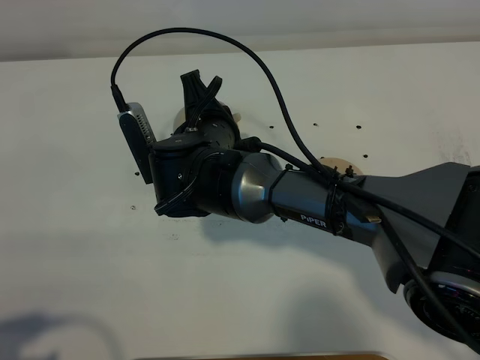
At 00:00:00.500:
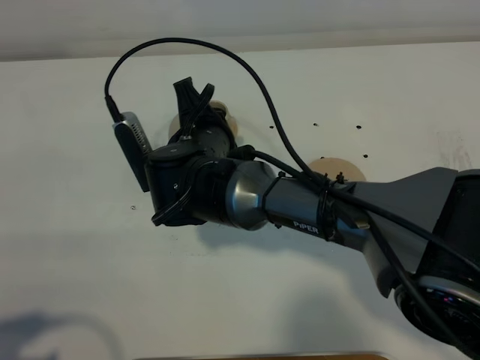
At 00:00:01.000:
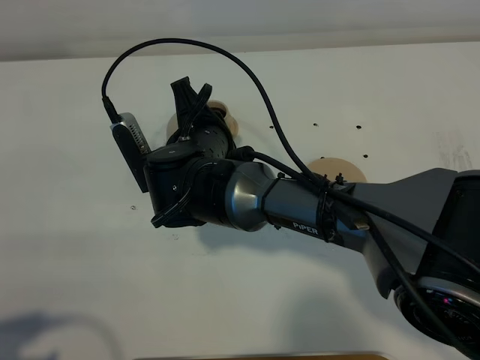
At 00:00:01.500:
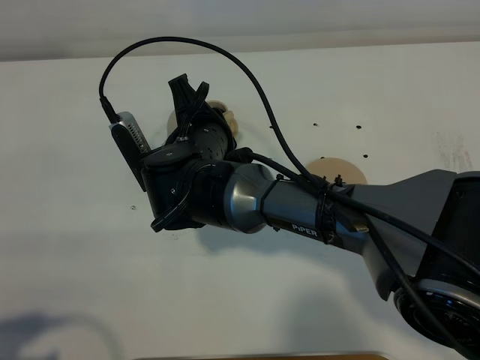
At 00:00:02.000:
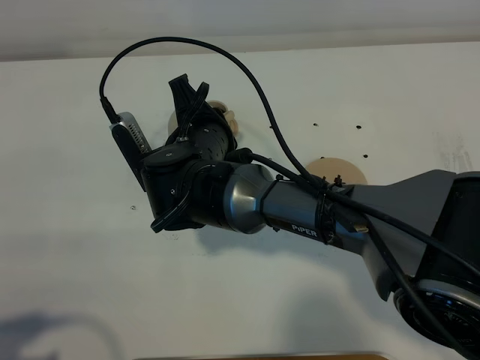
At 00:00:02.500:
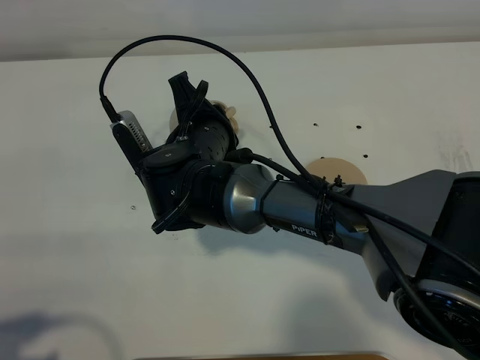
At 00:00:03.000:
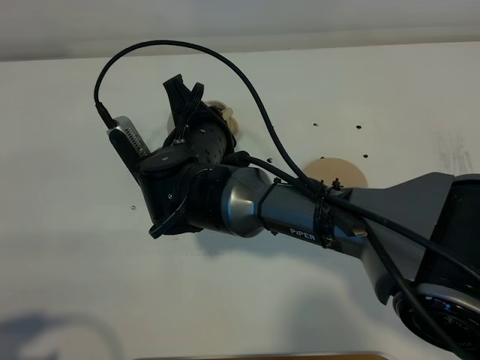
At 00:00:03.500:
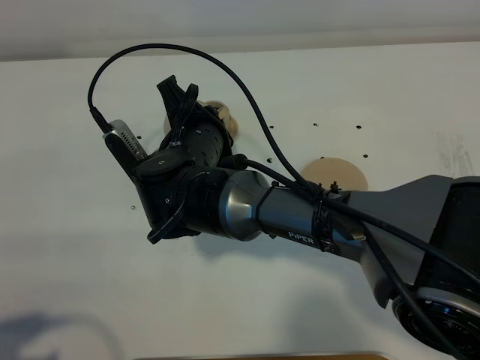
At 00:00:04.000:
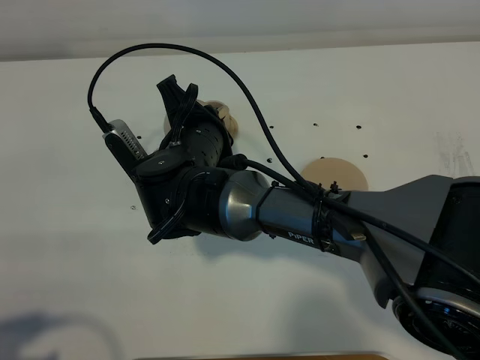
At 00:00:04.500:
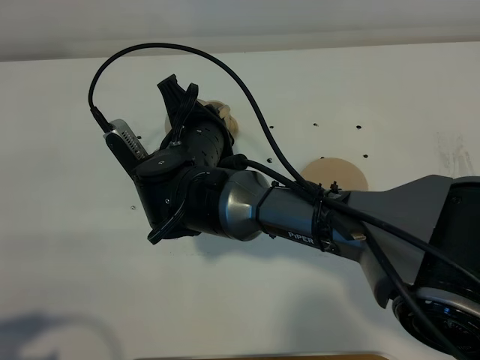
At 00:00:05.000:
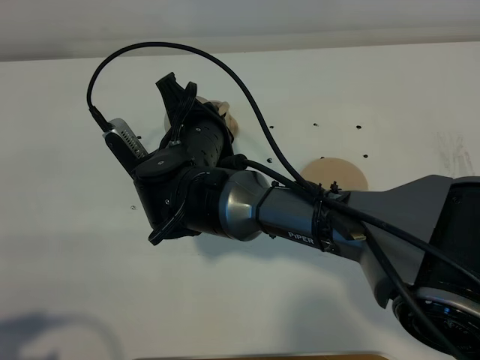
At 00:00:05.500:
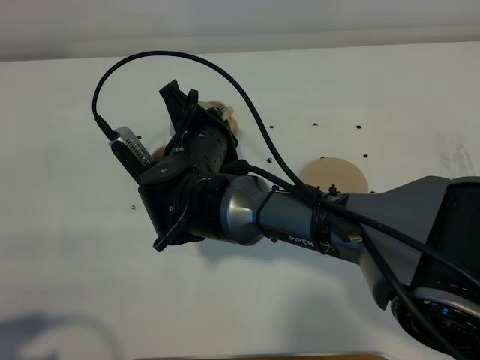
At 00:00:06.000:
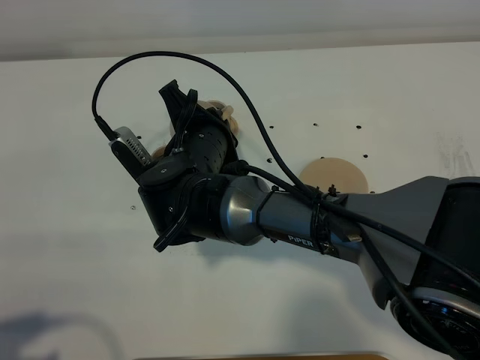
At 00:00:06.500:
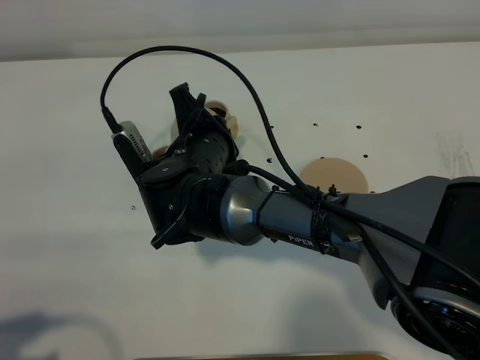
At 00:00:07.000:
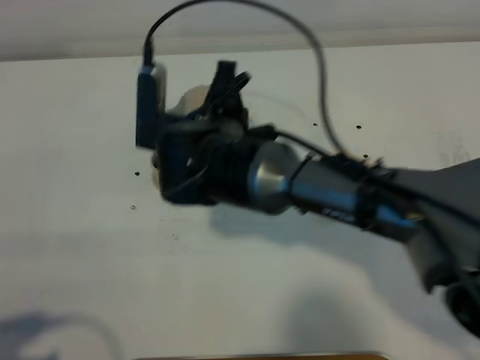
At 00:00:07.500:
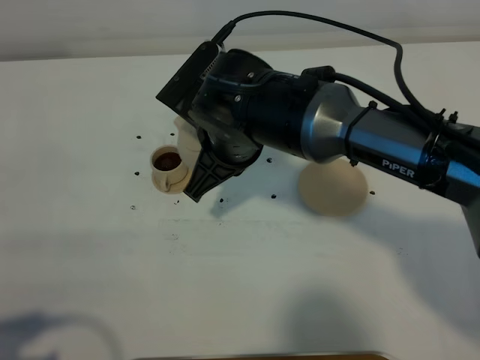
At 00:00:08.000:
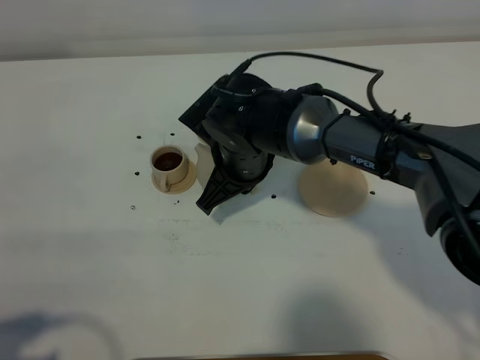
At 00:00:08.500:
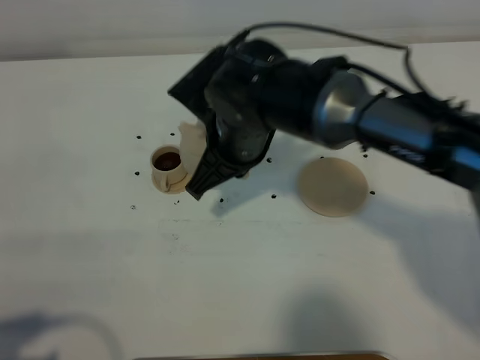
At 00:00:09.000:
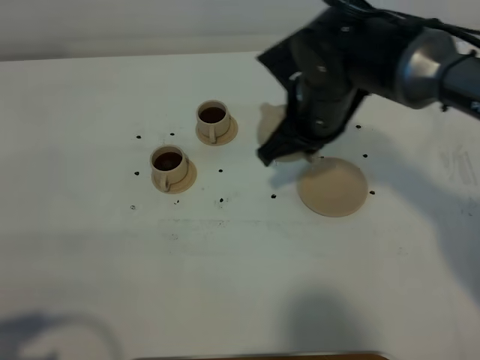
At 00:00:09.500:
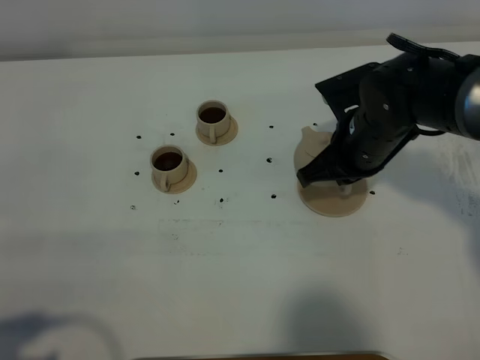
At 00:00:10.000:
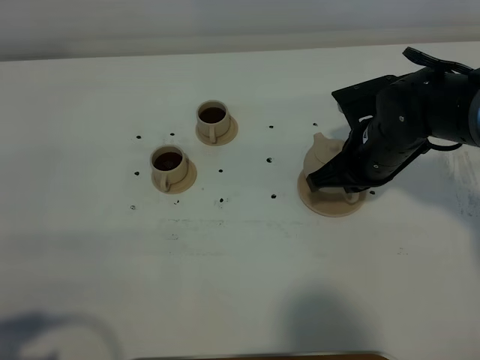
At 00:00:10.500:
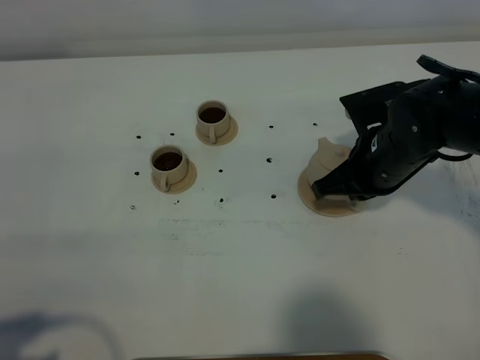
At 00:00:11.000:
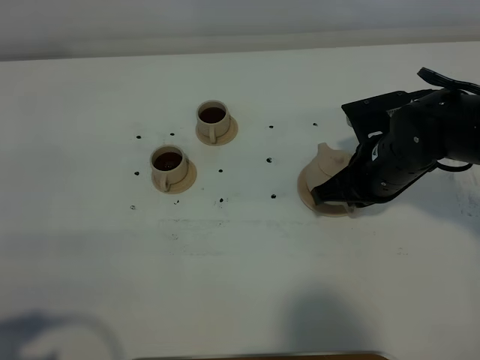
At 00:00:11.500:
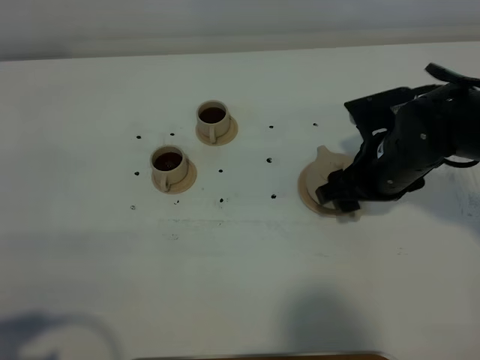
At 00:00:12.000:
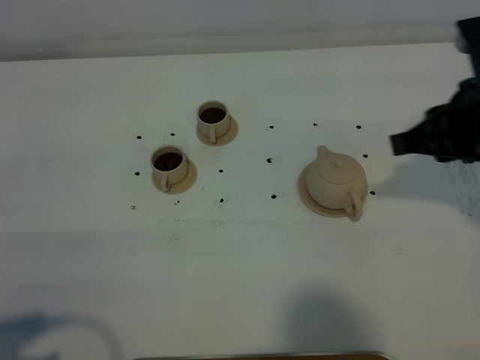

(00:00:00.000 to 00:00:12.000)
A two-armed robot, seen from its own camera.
Task of the whole recording: grasp the brown teapot and pour the tea into the two brown teacups one by one, put the brown teapot back in its original place.
Step, 00:00:00.000 - 00:00:06.500: Pour tea into the teacup with the right gripper.
00:00:00.000 - 00:00:04.000: The grippers move only a little.
00:00:04.000 - 00:00:06.000: The two grippers keep their place.
00:00:06.000 - 00:00:08.000: The right gripper is displaced to the right by some 5 cm.
00:00:08.000 - 00:00:10.000: The right gripper moves to the right, about 15 cm.
00:00:10.000 - 00:00:12.000: The right gripper travels upward, backward and to the right by approximately 15 cm, and opens and closes again.

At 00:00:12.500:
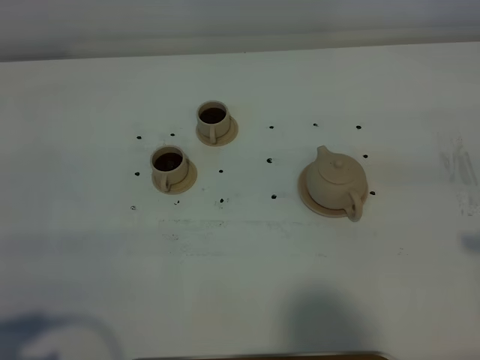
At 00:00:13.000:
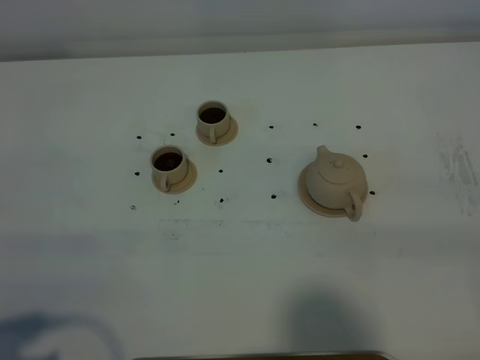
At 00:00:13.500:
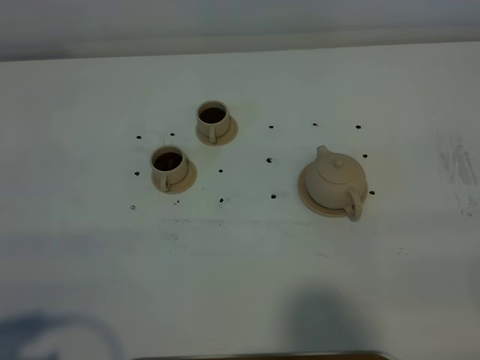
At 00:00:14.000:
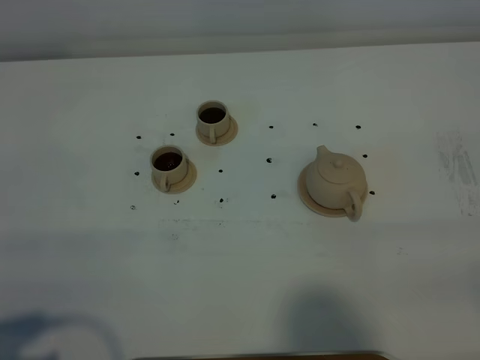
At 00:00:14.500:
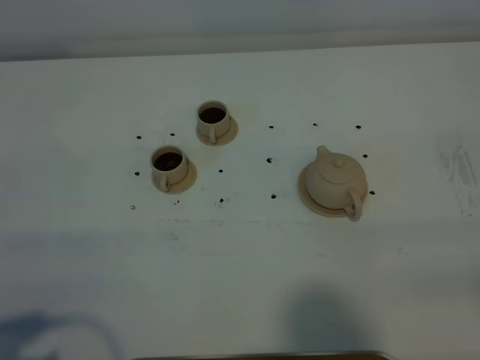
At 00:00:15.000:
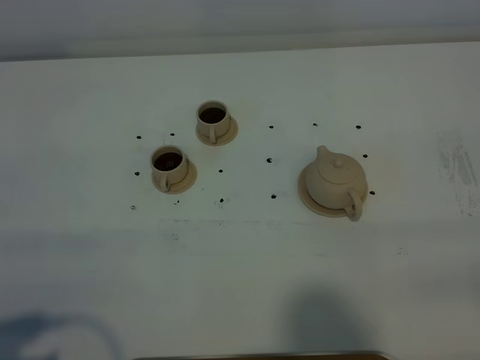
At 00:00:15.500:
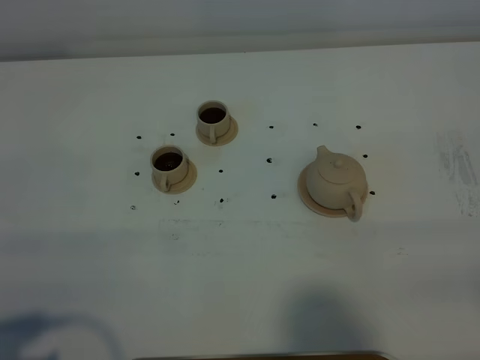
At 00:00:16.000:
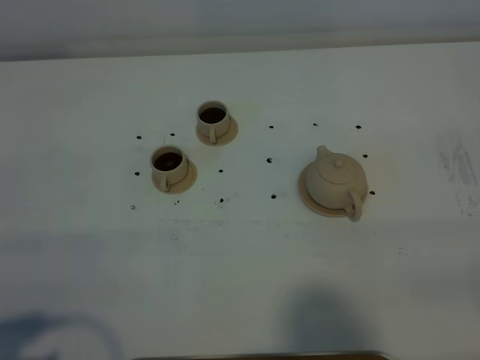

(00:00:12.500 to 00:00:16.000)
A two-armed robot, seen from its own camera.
Task of the whole recording: grasp the brown teapot and pour the tea into the two brown teacups one by one, put the brown teapot back in its original place.
00:00:14.500 - 00:00:16.000: Both grippers stay put.

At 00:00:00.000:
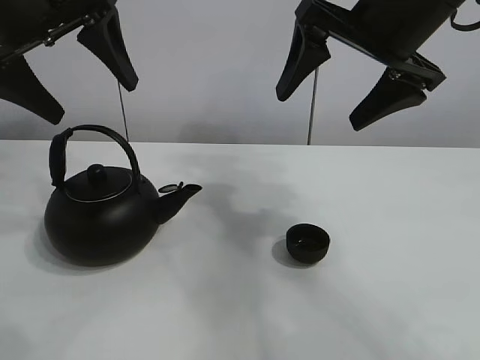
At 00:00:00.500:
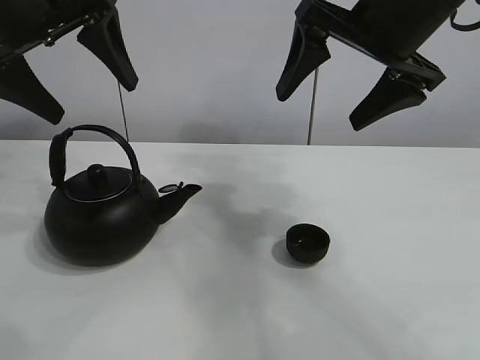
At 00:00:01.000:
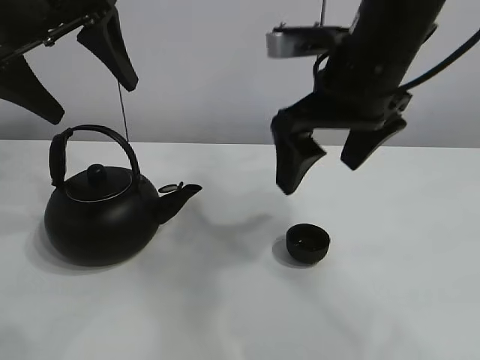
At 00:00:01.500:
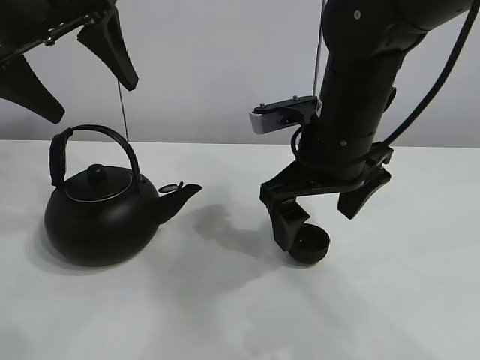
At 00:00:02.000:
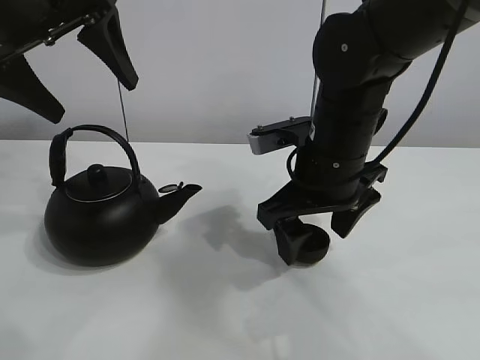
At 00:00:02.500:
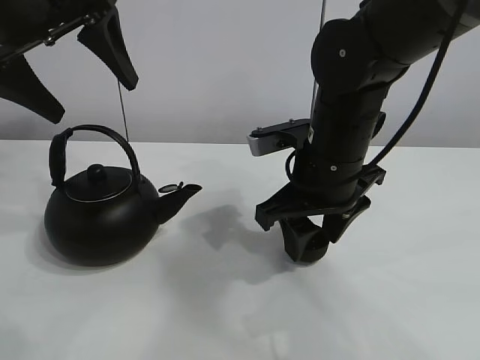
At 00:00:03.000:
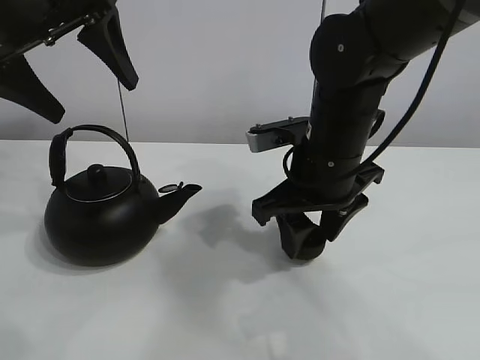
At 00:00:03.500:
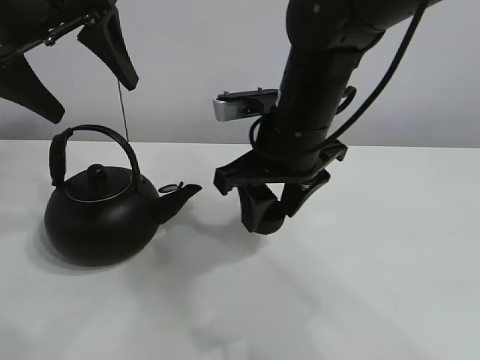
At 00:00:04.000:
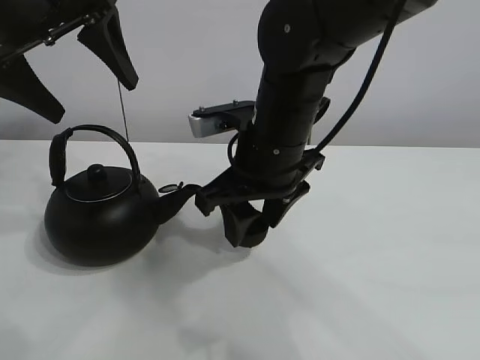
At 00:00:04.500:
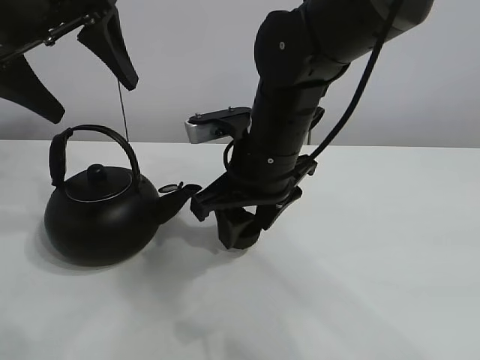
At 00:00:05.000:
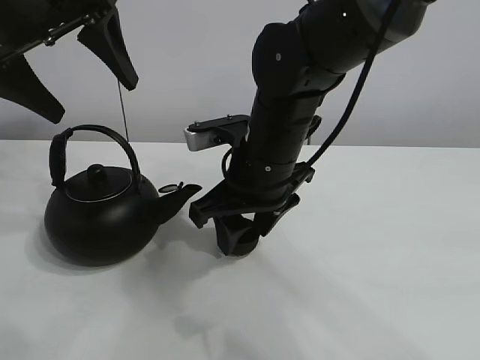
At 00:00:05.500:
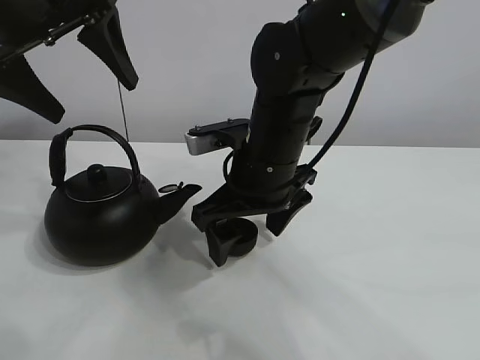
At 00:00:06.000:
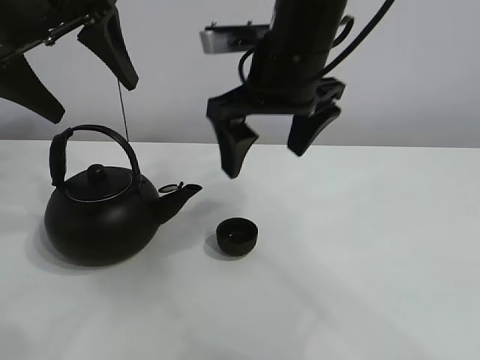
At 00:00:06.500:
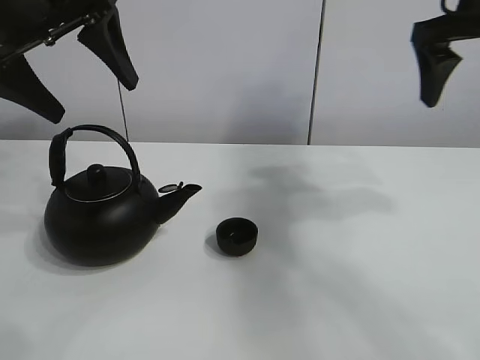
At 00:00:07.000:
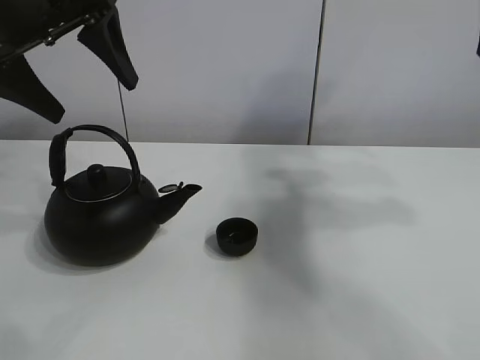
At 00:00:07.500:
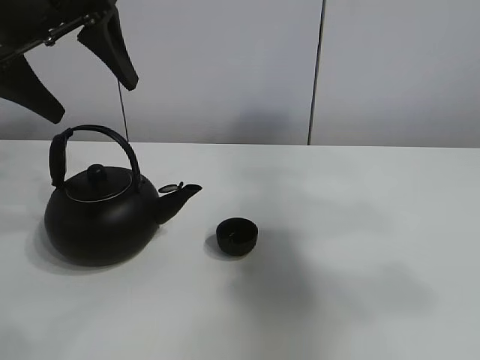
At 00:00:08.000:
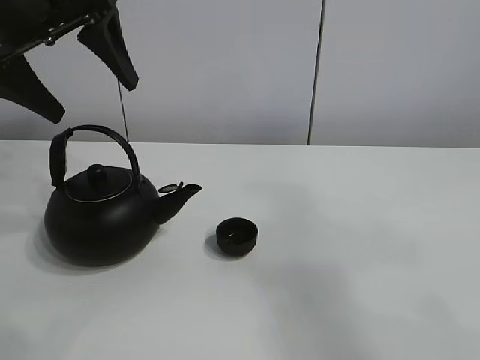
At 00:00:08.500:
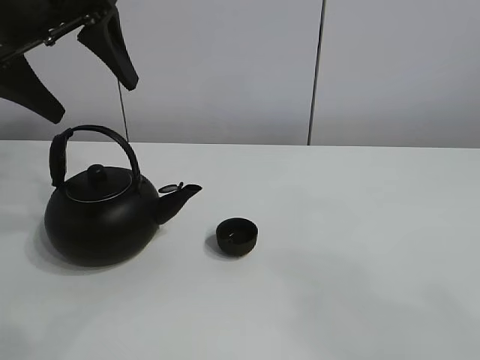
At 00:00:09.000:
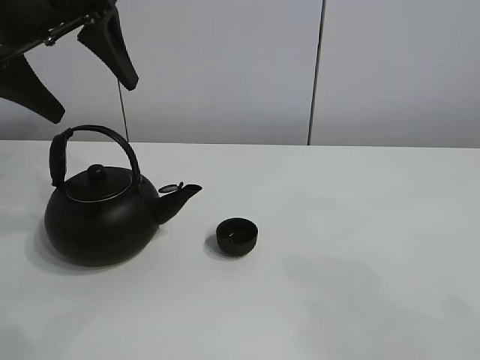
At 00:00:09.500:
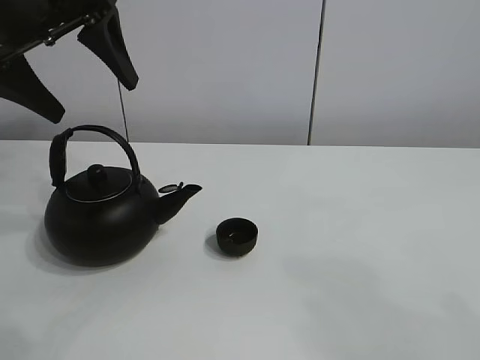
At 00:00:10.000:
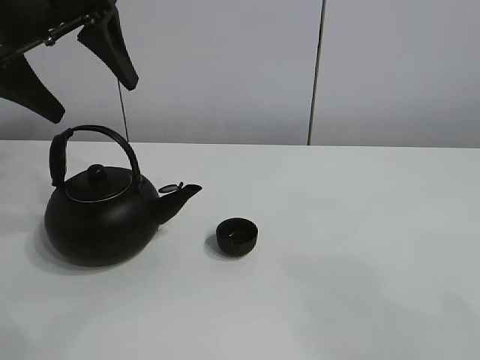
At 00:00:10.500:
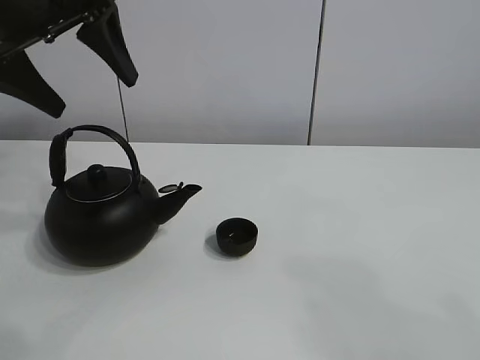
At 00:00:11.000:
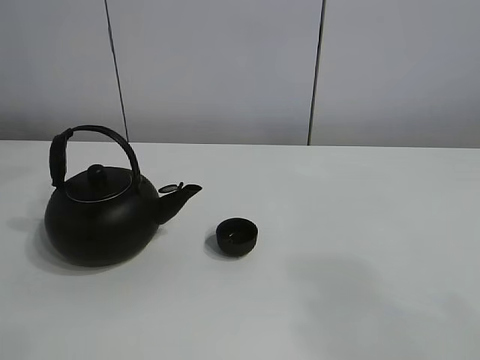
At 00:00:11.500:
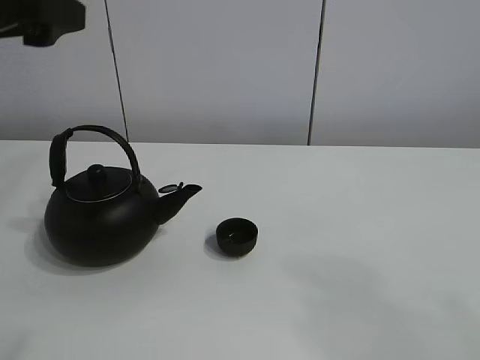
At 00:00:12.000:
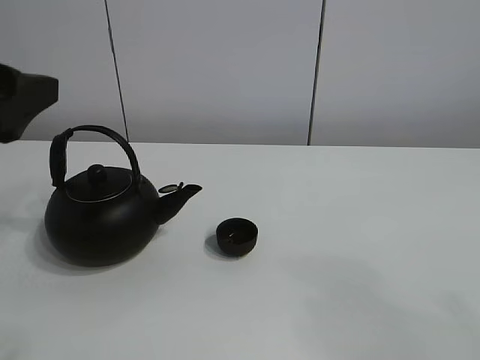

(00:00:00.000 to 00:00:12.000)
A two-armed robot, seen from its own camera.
Task of the whole recording: pour tea into the teacup.
Step, 00:00:00.000 - 00:00:03.000: Pick up the teacup with the right gripper.
Step, 00:00:03.500 - 00:00:05.000: Place the teacup in the center of view with the right gripper.
00:00:02.000 - 00:00:04.000: The right gripper is displaced to the left by some 5 cm, and closes up.
00:00:04.000 - 00:00:06.000: The right gripper travels upward by about 10 cm, and opens its fingers.
00:00:06.000 - 00:00:08.000: The right gripper is displaced backward and to the right by some 35 cm.
00:00:08.000 - 00:00:10.000: The right gripper moves downward and backward, some 10 cm.
00:00:10.000 - 00:00:12.000: The left gripper moves backward and downward, about 15 cm.
